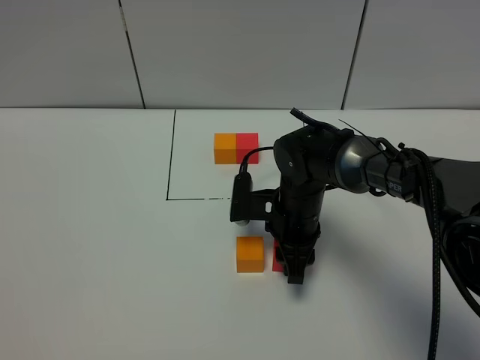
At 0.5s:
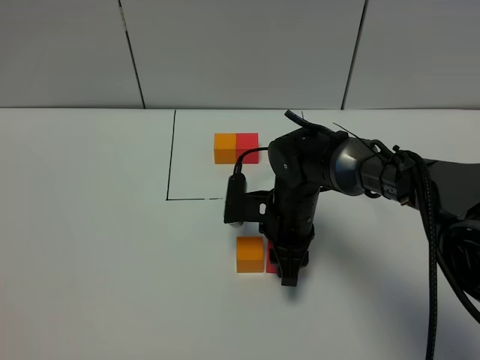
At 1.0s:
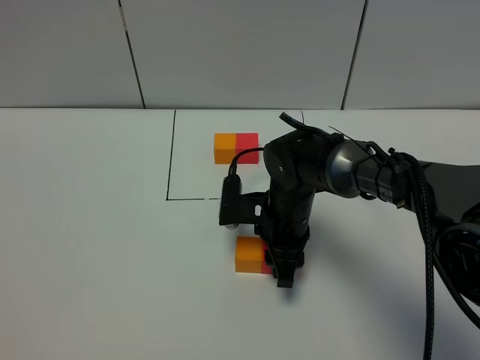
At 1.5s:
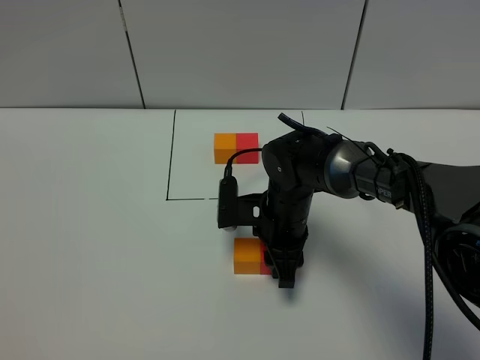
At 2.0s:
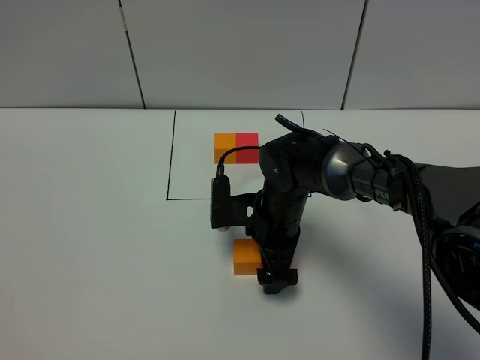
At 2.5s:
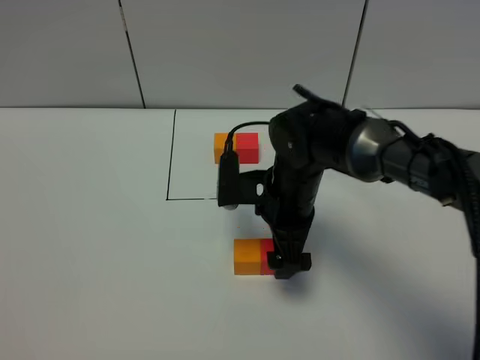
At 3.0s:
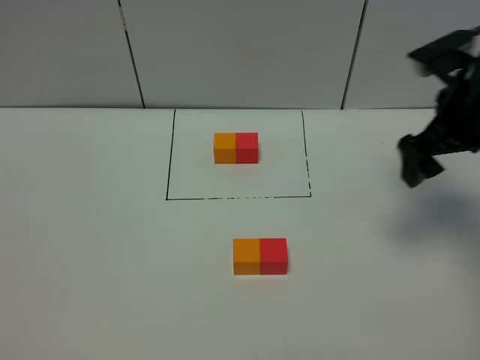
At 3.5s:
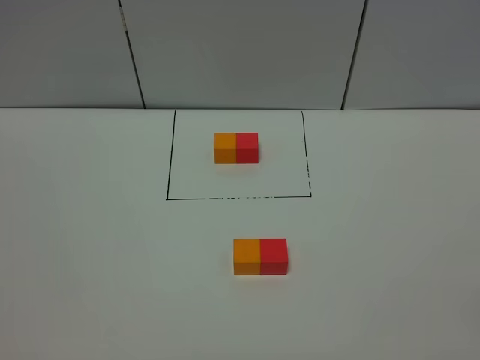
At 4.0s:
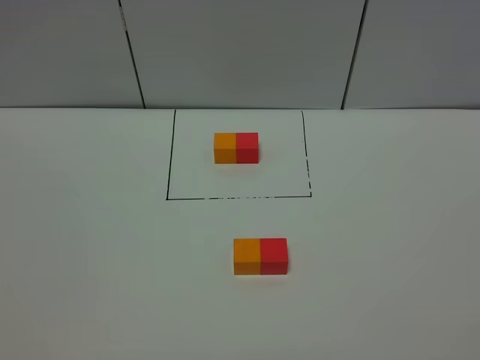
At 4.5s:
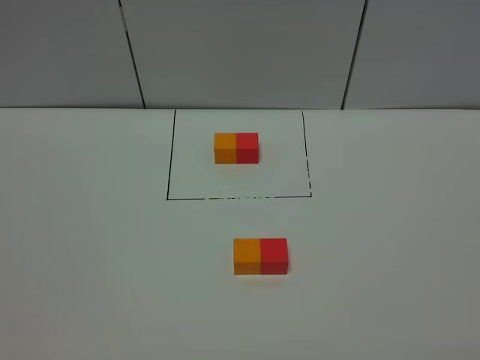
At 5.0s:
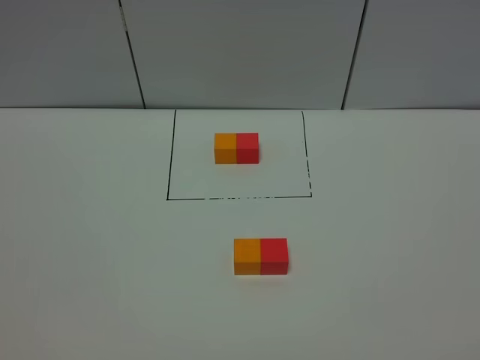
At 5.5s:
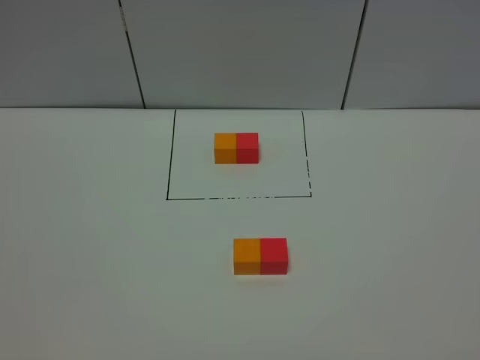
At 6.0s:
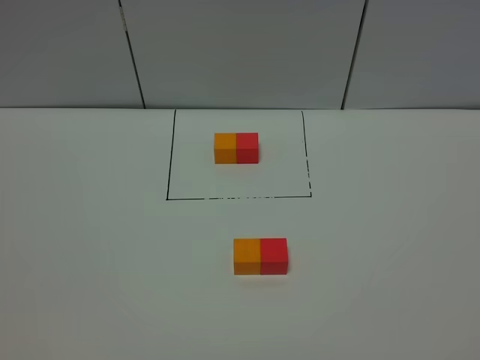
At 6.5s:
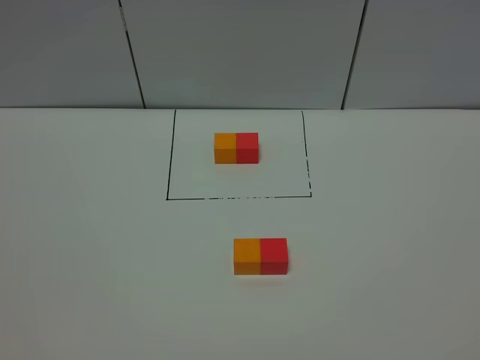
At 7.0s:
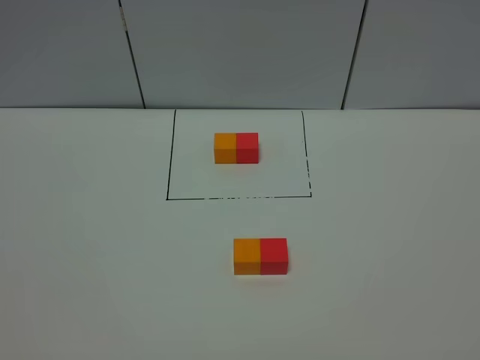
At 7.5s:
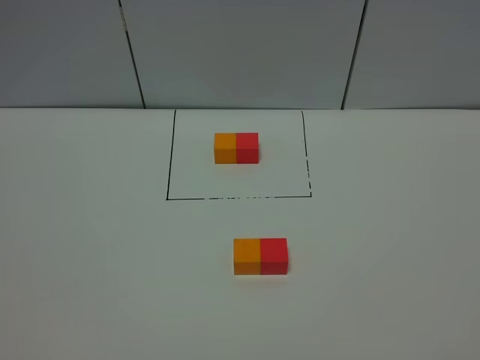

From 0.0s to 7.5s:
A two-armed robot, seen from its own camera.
Task of the whole recording: According to the building block template in front, assemble the scattered blocks together.
Step, from 0.0s to 2.5s: Put the red cube on the right of the orange cube.
From 0.0s to 2.0s: The right gripper opens its fingers.
From 2.0s to 4.0s: The right gripper heads backward, to the right and upward, covering approximately 50 cm.
From 5.5s to 7.5s: The two grippers keep their place.
